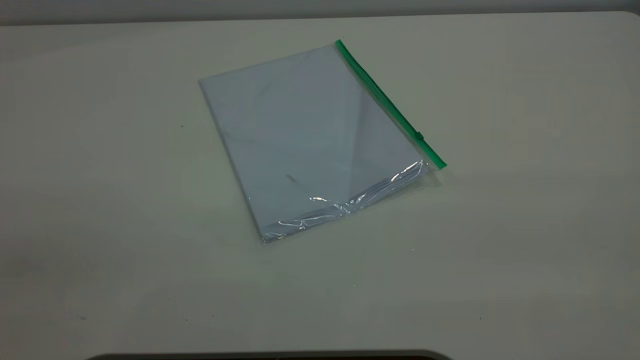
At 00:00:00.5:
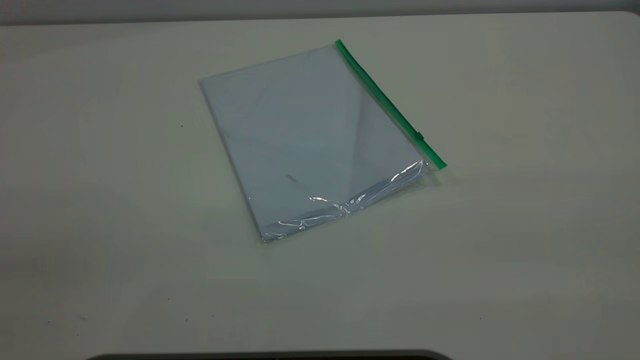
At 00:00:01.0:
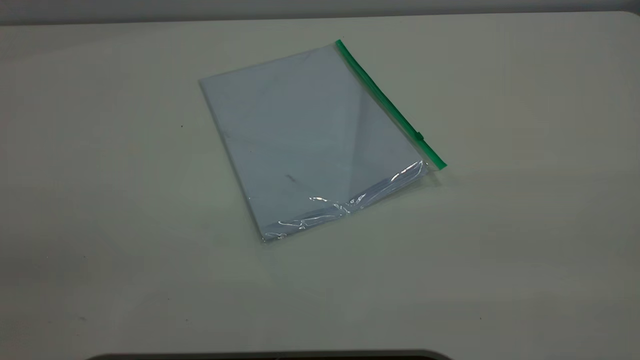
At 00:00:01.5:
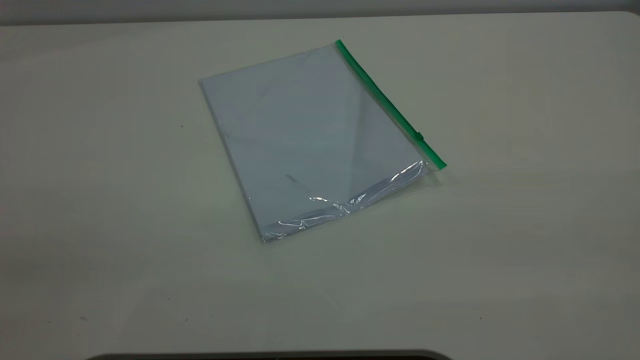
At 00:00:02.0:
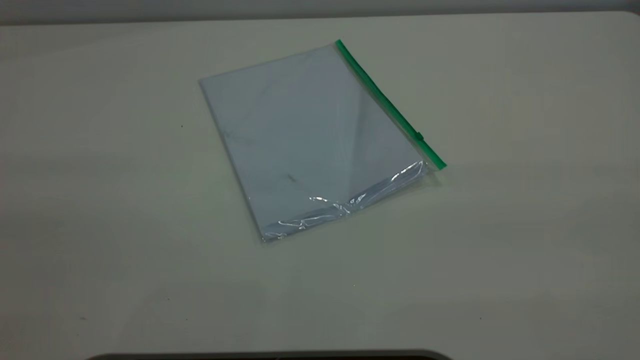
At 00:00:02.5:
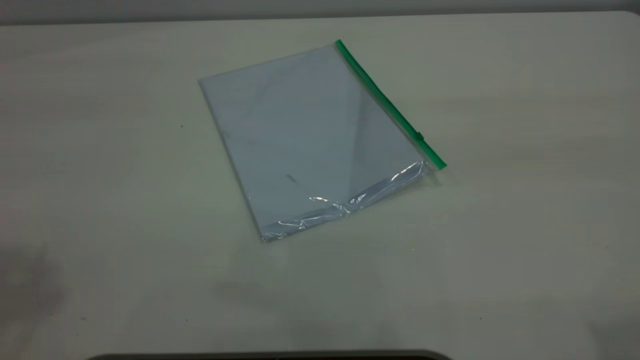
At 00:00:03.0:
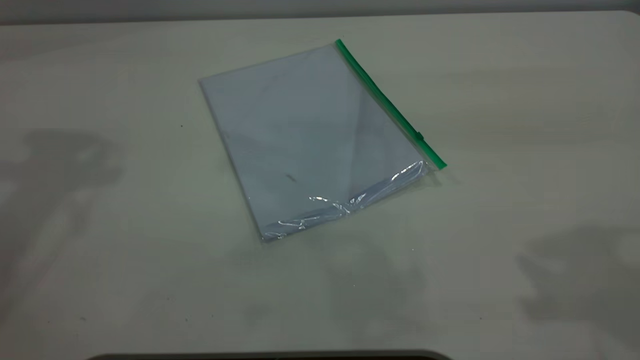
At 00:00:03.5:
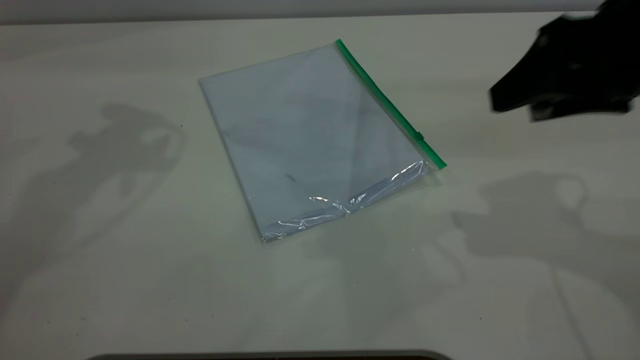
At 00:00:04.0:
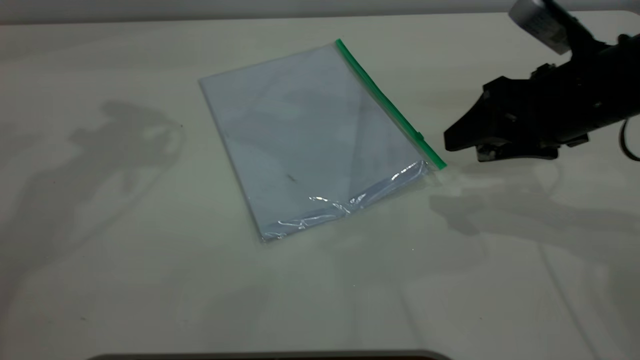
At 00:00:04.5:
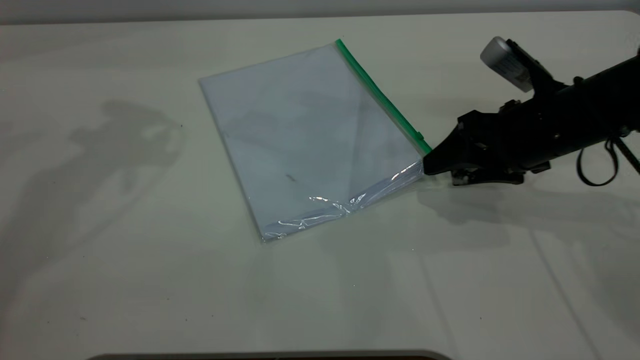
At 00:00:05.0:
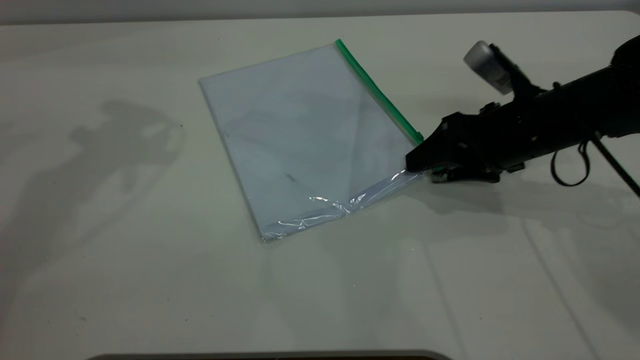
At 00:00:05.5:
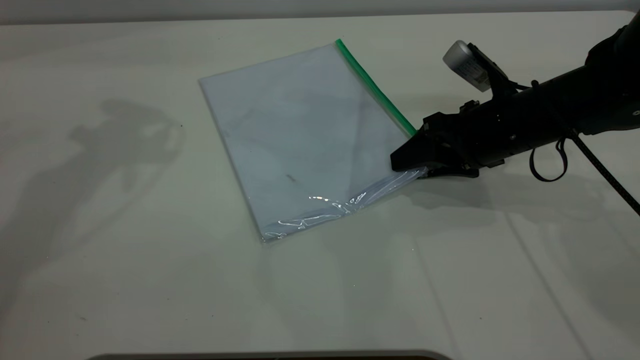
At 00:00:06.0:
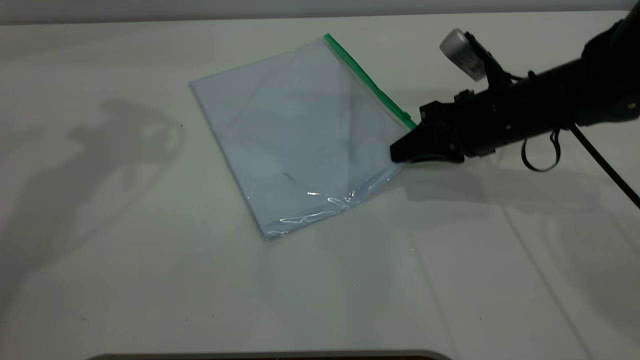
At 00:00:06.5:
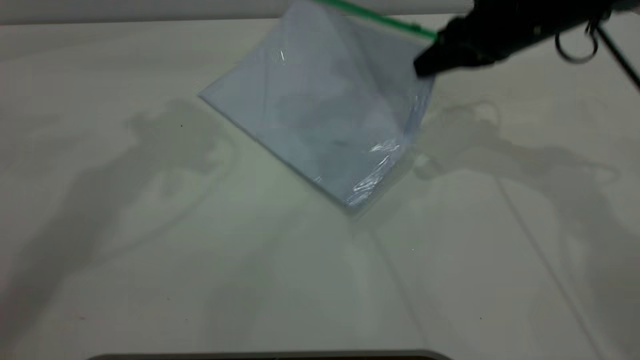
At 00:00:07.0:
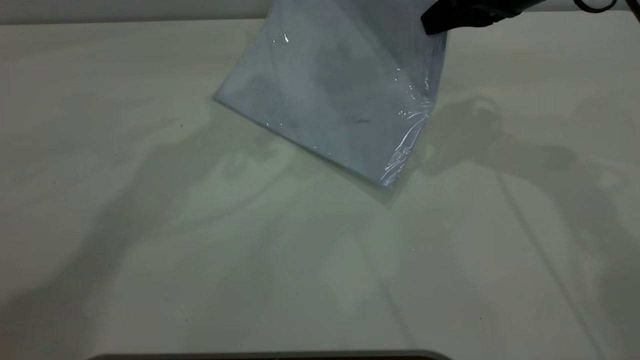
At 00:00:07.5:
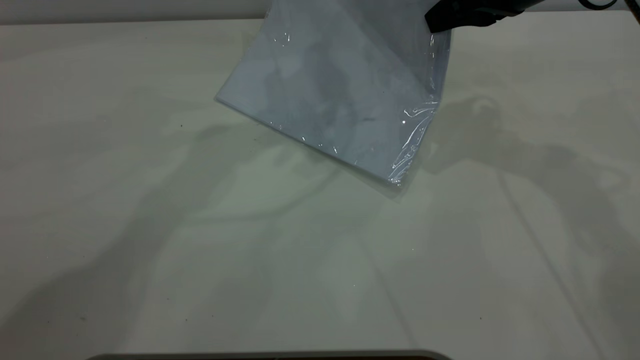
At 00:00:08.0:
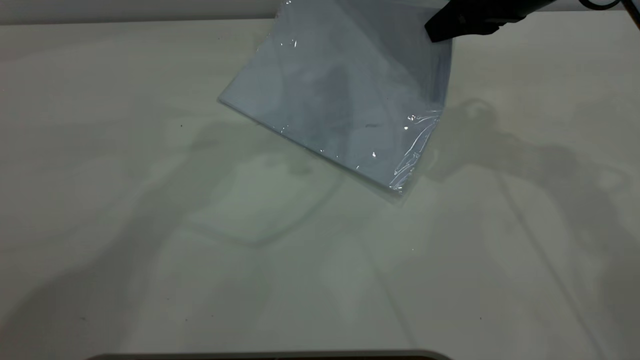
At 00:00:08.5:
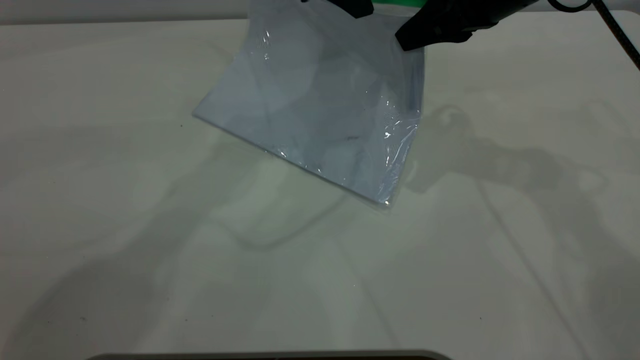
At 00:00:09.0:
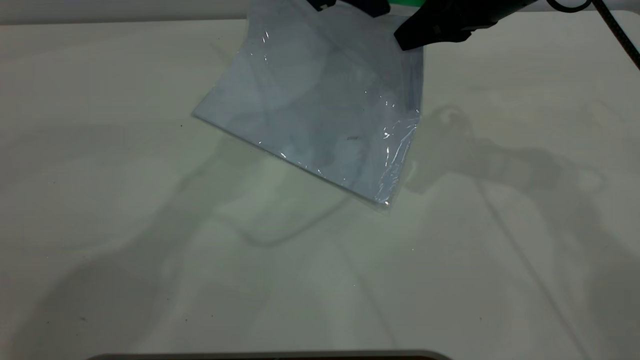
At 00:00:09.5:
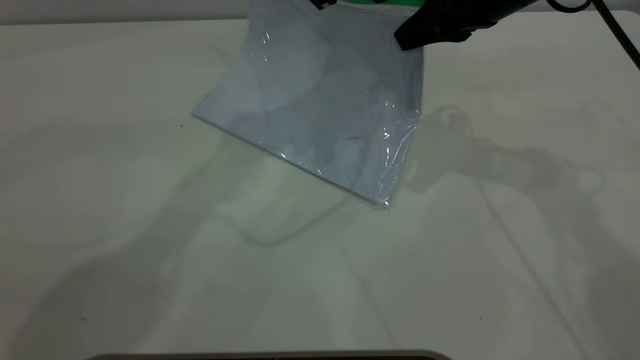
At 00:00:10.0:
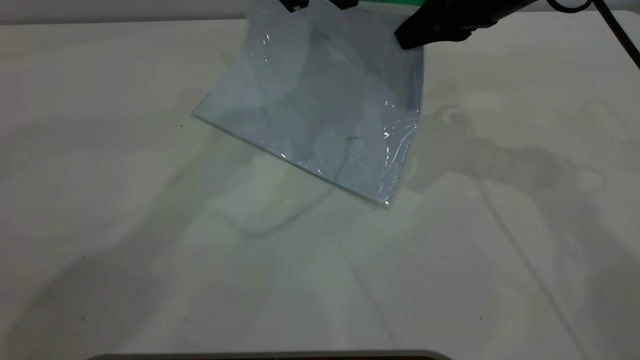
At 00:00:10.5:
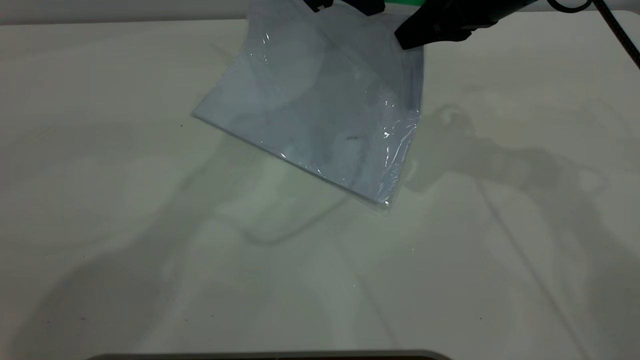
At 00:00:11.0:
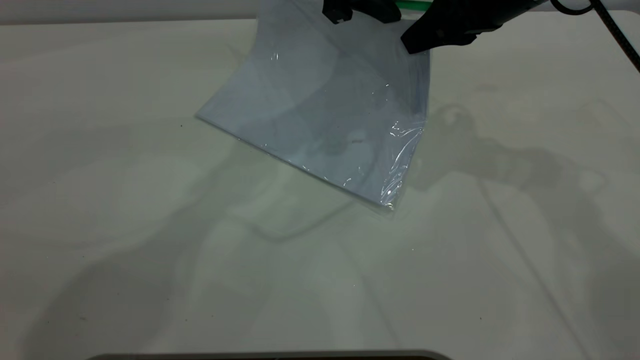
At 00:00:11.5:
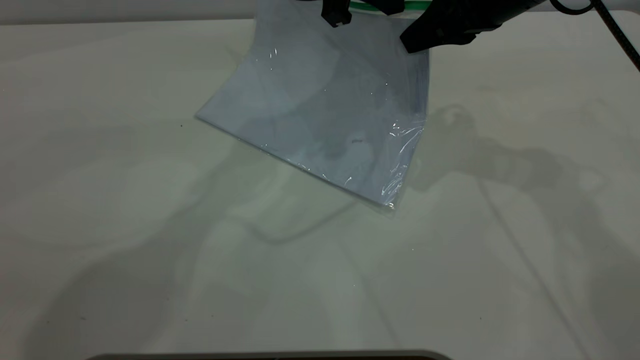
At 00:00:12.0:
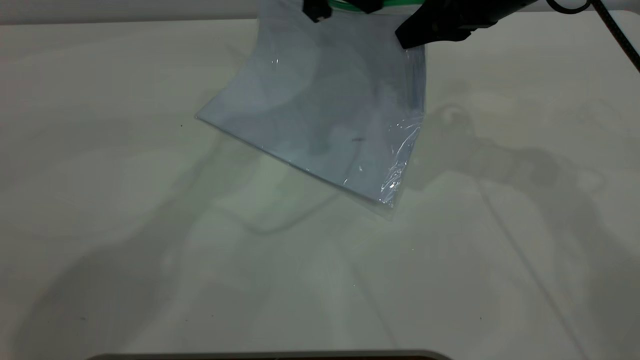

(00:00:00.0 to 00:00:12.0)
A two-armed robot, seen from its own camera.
Step, 00:00:00.0 - 00:00:06.0: Pick up the transparent plastic bag with the right gripper.
00:00:02.0 - 00:00:04.0: The right gripper goes about 40 cm forward and downward.
00:00:04.0 - 00:00:06.0: The right gripper is displaced downward and forward by roughly 10 cm, and closes.
00:00:06.0 - 00:00:08.0: The right gripper goes approximately 15 cm upward. The left gripper is displaced to the right by roughly 20 cm.
00:00:08.0 - 00:00:10.0: The left gripper changes place by about 5 cm, and closes up.

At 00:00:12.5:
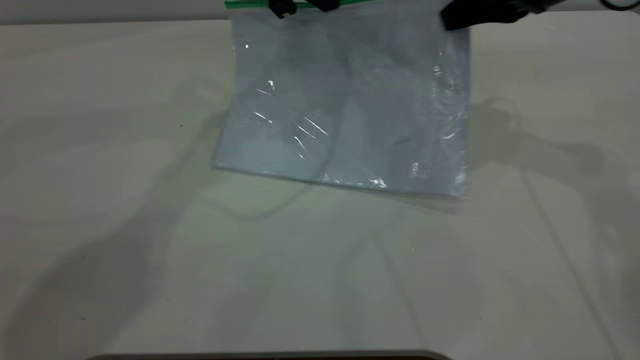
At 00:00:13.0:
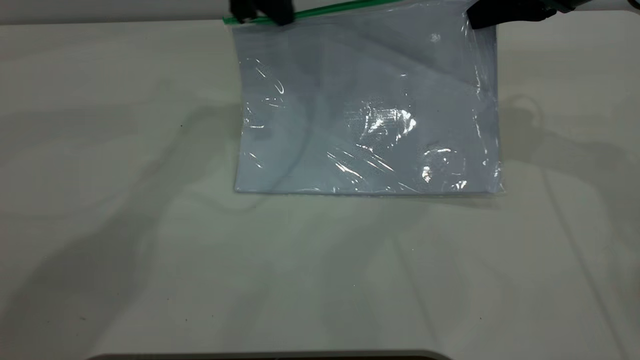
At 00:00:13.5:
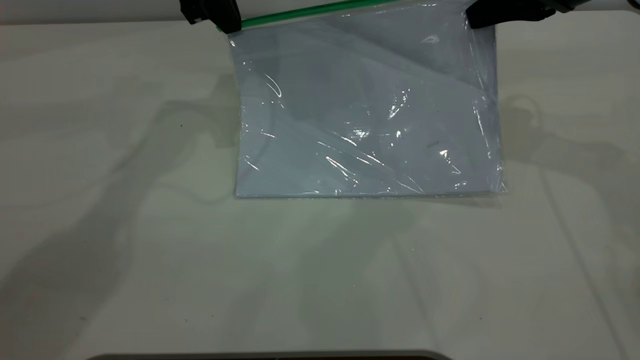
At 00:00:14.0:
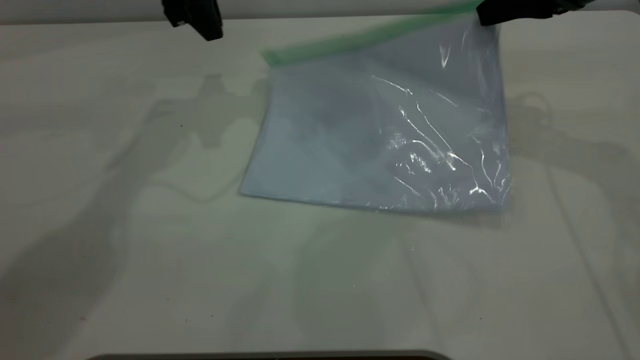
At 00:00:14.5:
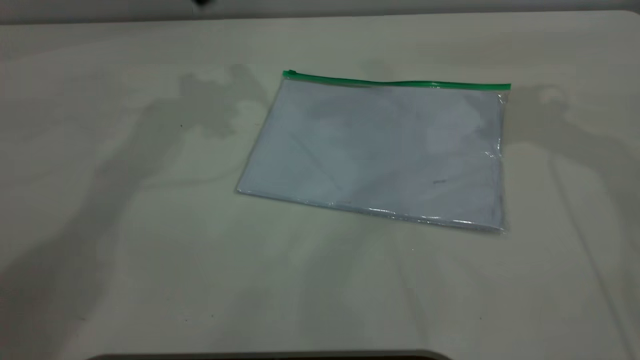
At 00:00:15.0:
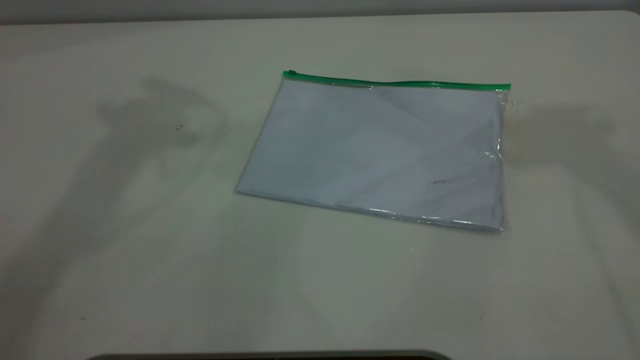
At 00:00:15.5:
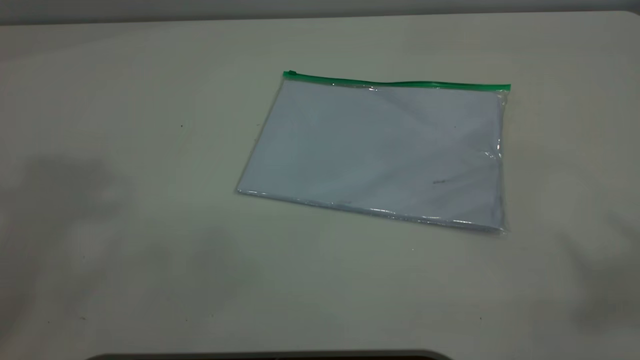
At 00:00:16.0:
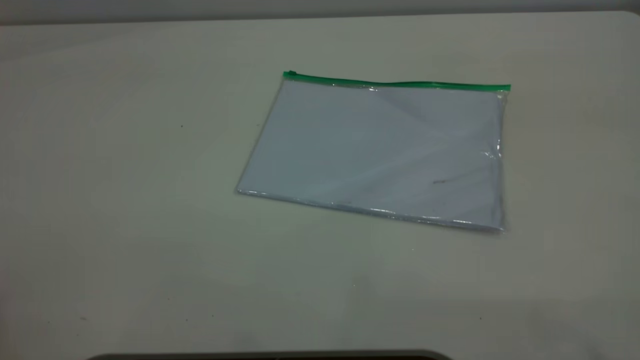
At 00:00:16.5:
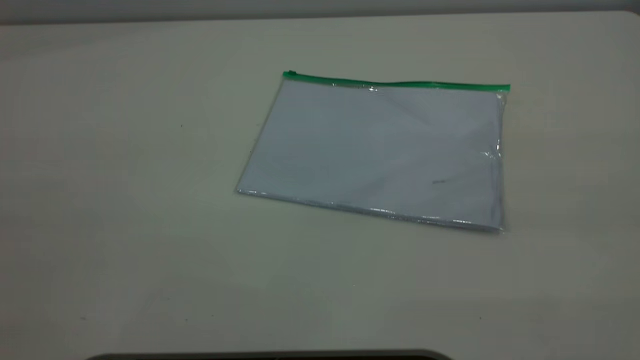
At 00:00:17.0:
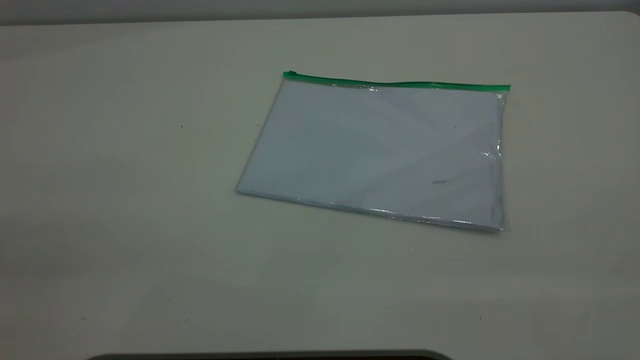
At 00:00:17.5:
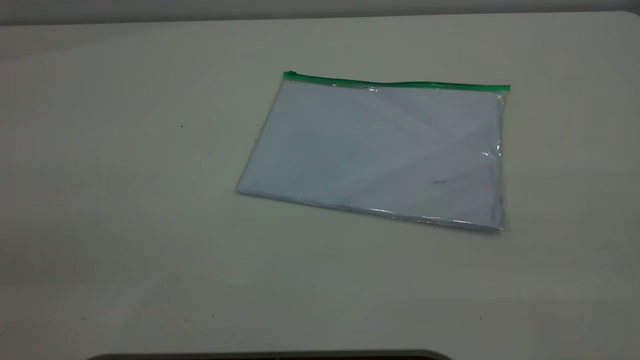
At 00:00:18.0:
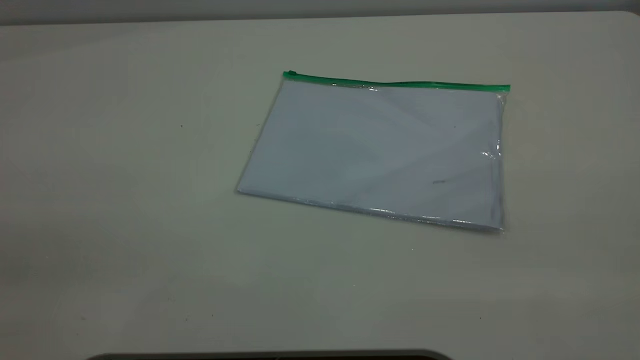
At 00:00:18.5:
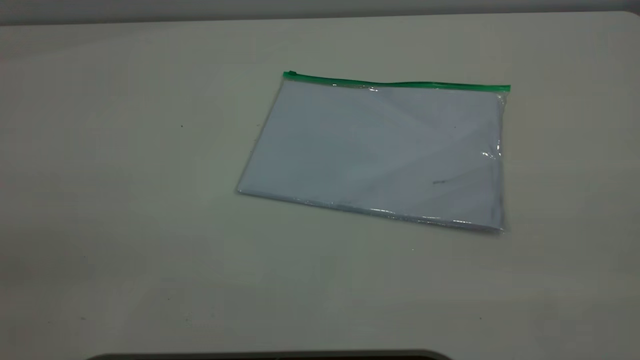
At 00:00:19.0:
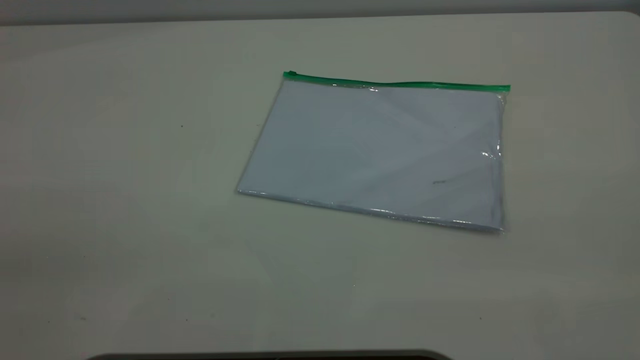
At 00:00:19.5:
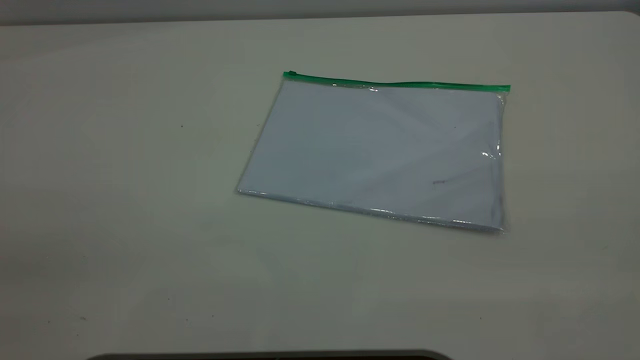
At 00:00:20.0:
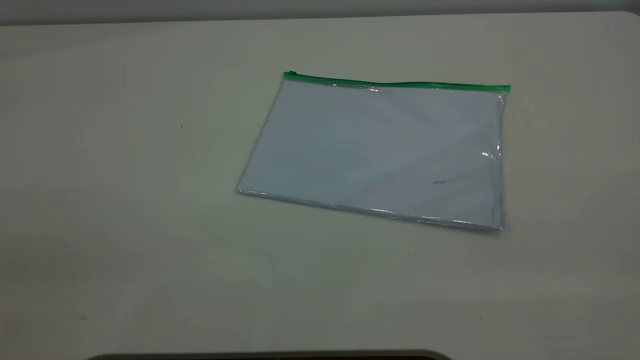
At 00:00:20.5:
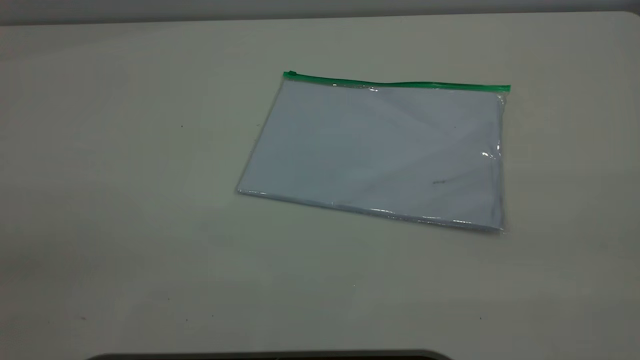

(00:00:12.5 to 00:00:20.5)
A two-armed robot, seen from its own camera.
00:00:12.5 - 00:00:14.5: The left gripper travels to the left and upward by some 10 cm, and opens up. The right gripper shifts some 5 cm upward, and opens up.
